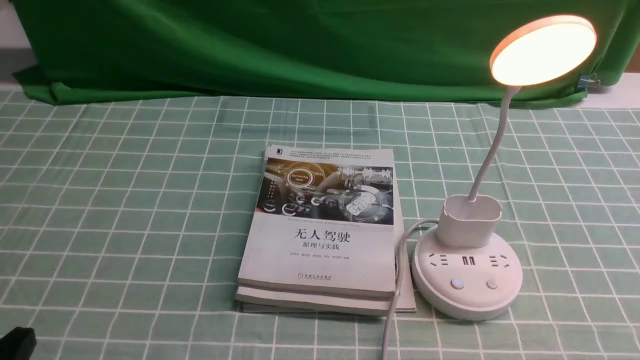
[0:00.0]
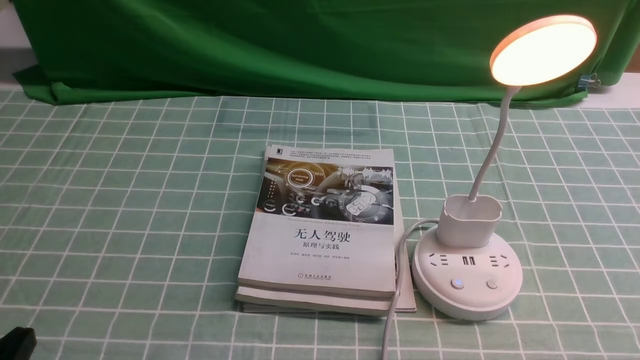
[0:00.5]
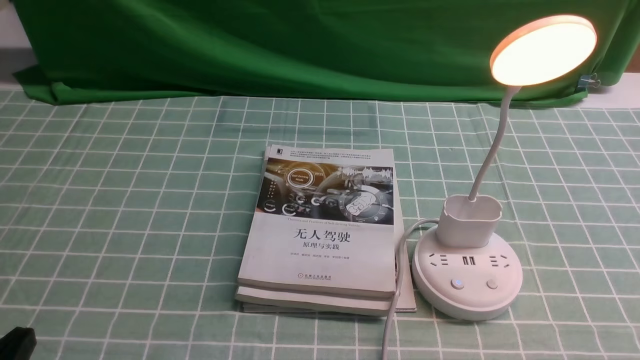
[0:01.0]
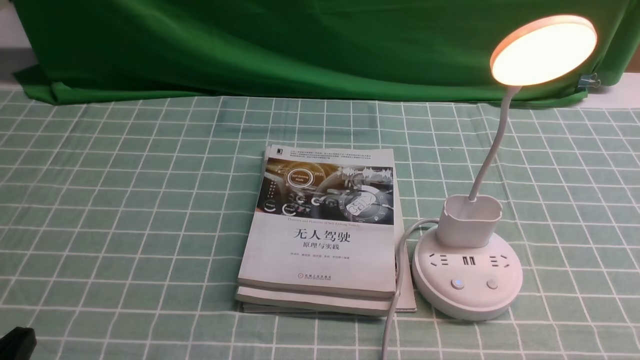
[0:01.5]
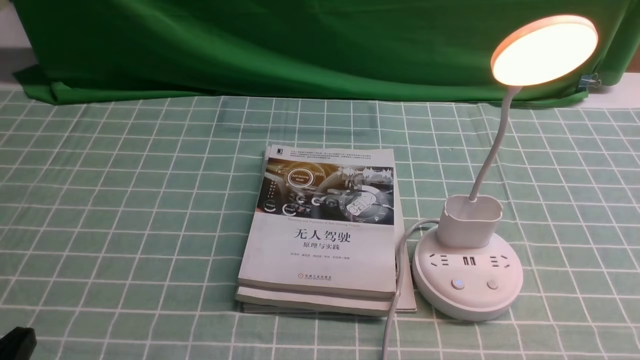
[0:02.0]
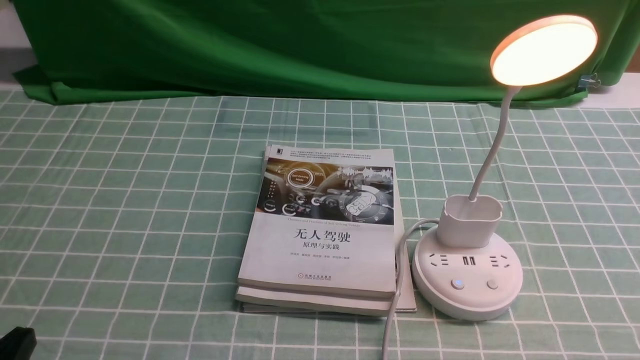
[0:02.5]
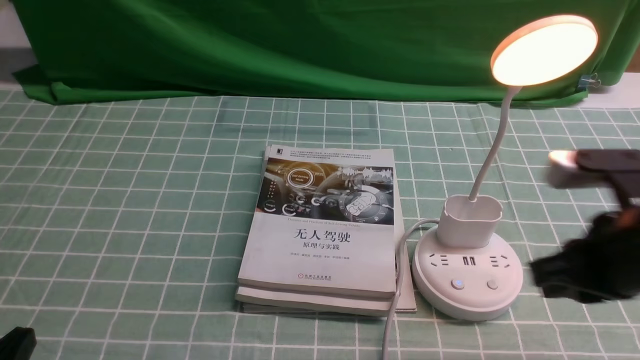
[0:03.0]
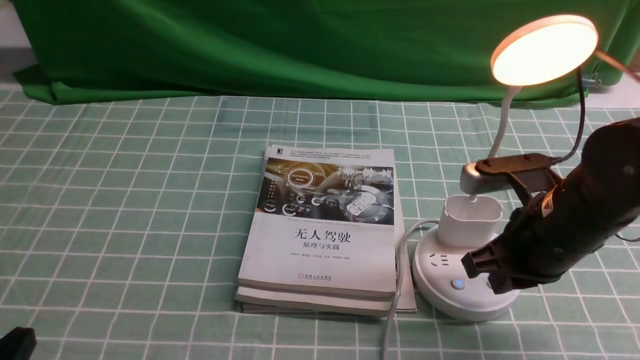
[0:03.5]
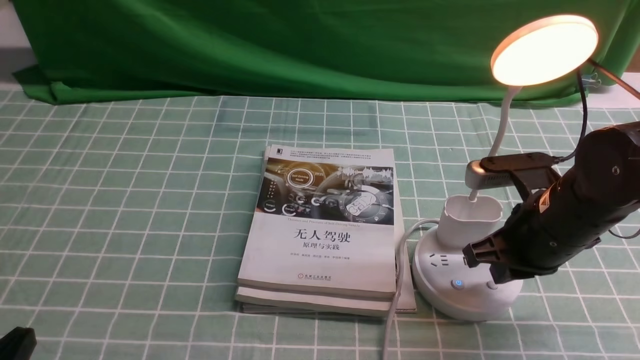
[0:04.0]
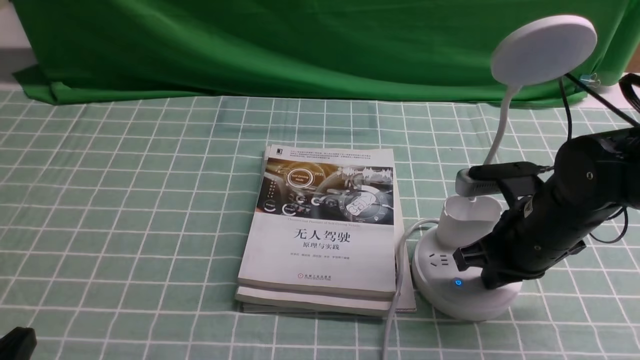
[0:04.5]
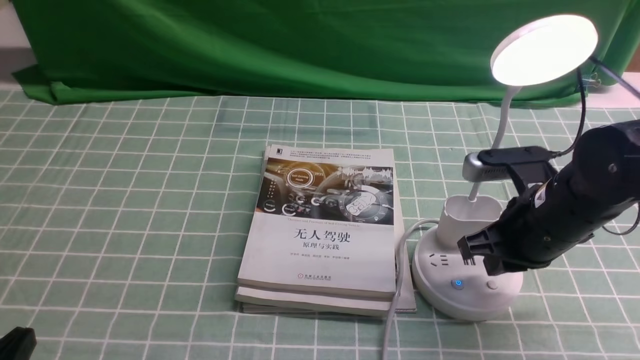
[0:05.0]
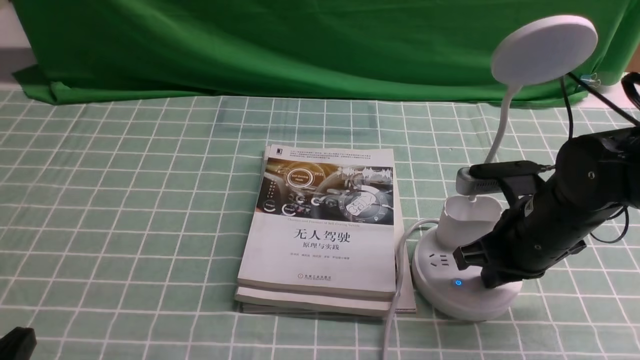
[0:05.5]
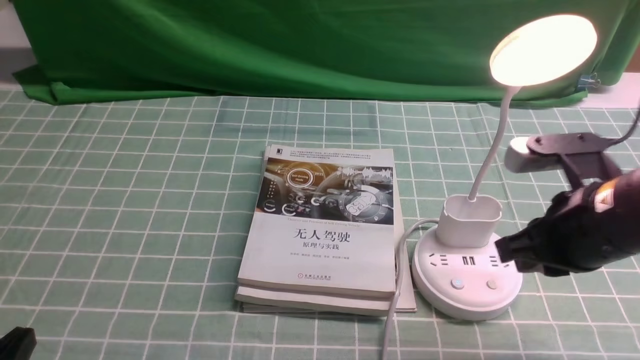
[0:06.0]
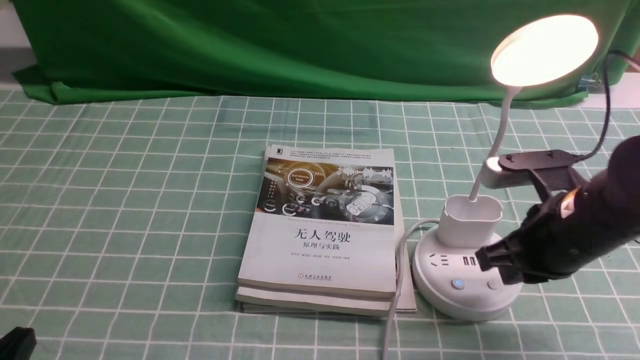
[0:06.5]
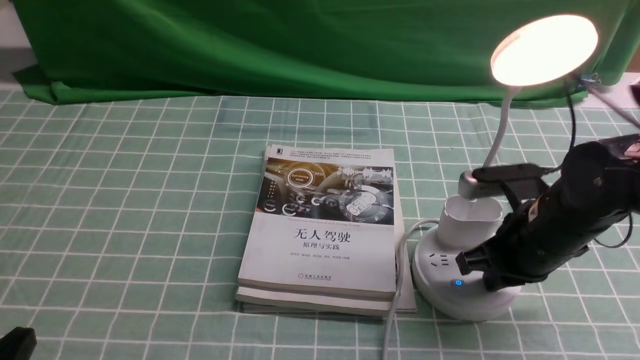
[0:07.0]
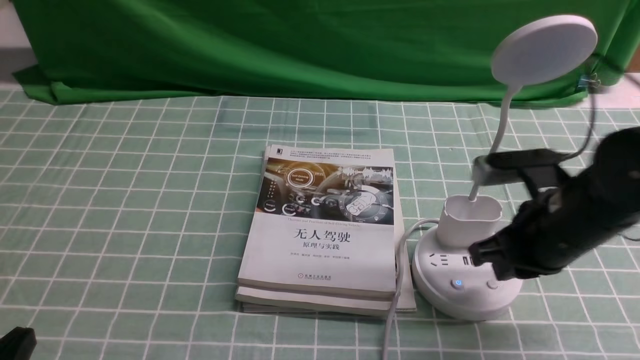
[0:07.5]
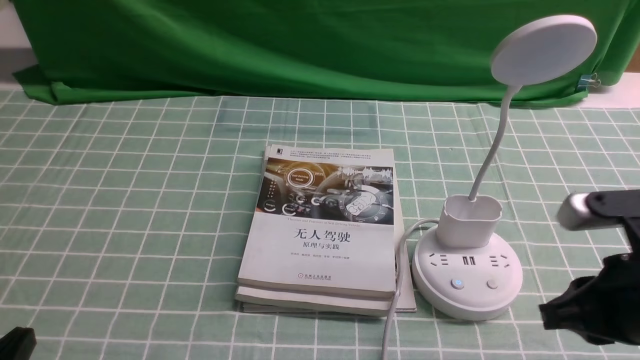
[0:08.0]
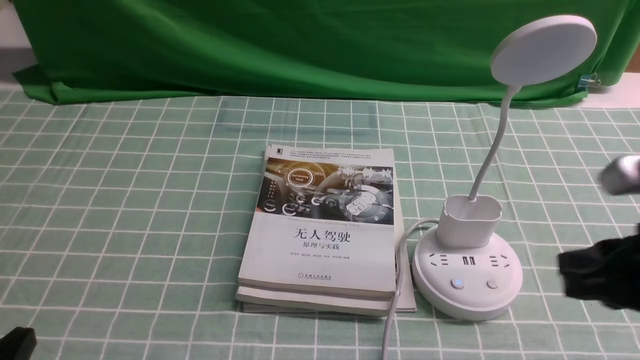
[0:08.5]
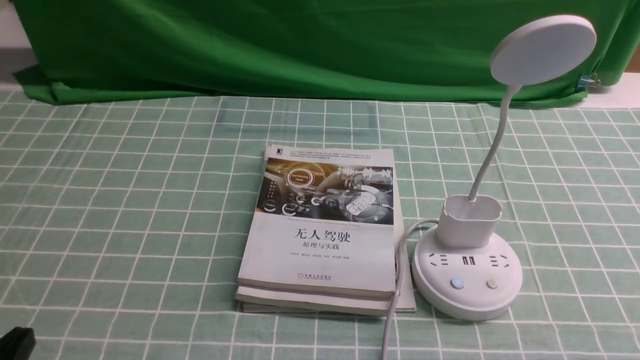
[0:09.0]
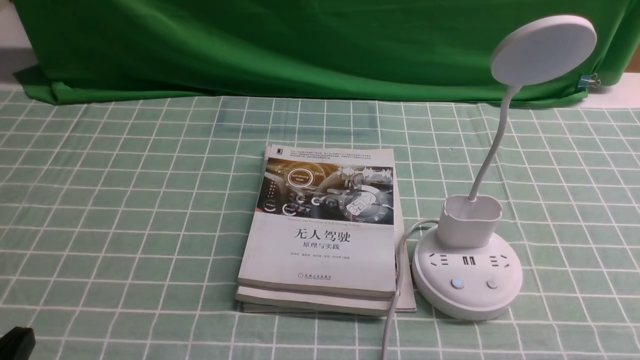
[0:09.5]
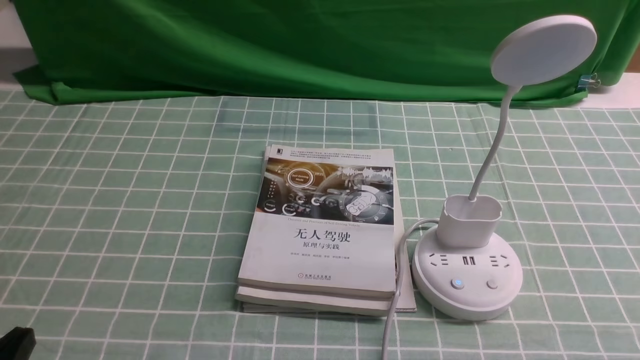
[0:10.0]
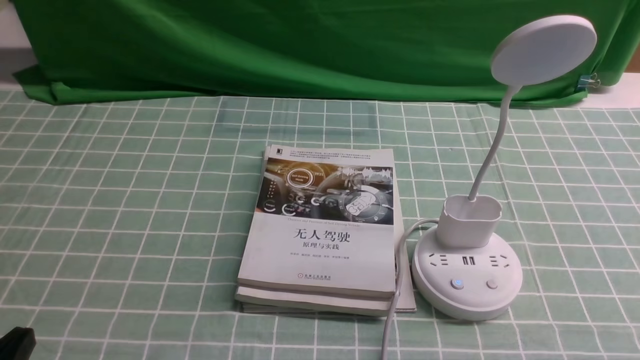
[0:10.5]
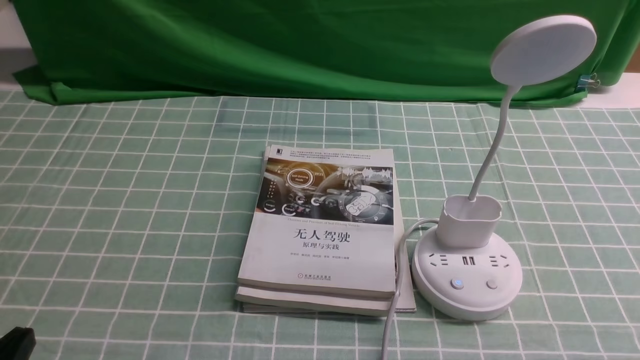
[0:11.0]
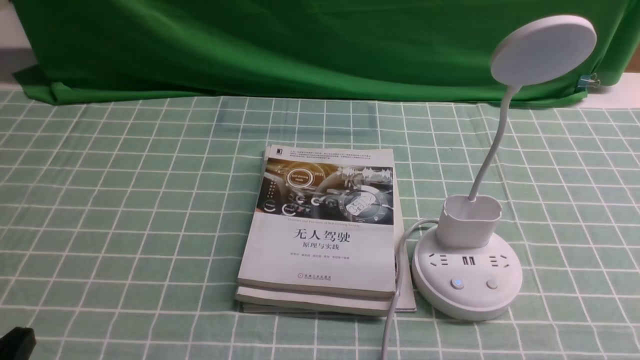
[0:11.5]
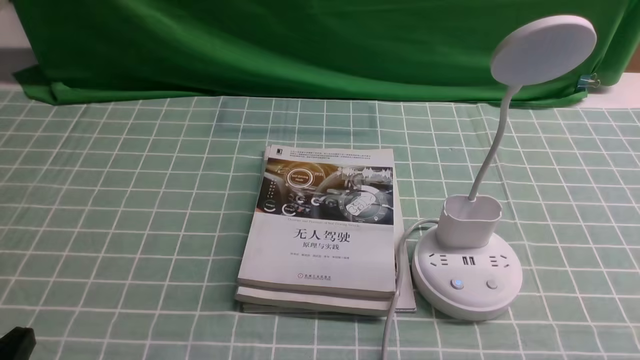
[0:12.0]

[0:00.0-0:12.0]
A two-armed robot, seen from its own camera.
Task of the whole recording: turn off the desk lamp on the blue coffee tablecloth by hand.
Step, 0:00.0 to 0:07.5: use the right arm to press the button switch on the lamp holder.
0:02.0 to 0:04.0: The right gripper is displaced forward and to the left by about 25 cm, and closes.
0:04.0 to 0:06.0: The right gripper moves about 5 cm.
0:06.0 to 0:08.0: The right gripper shifts approximately 5 cm backward.
0:08.0 to 0:10.0: The right gripper heads backward, to the right and downward, covering about 15 cm.

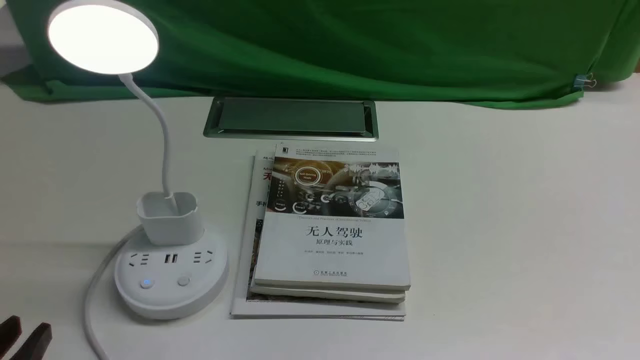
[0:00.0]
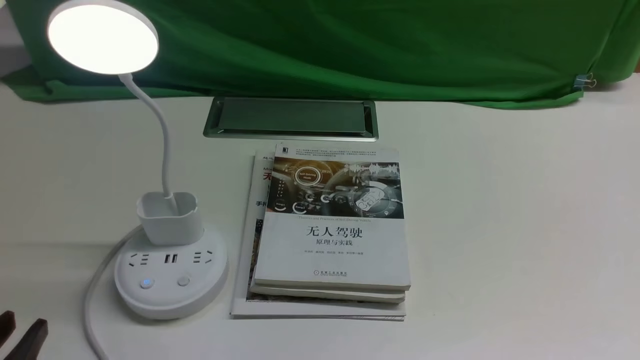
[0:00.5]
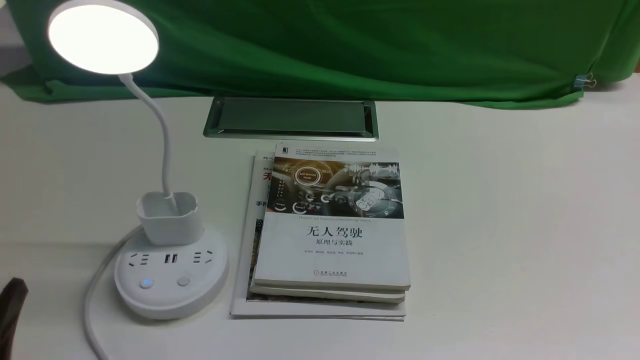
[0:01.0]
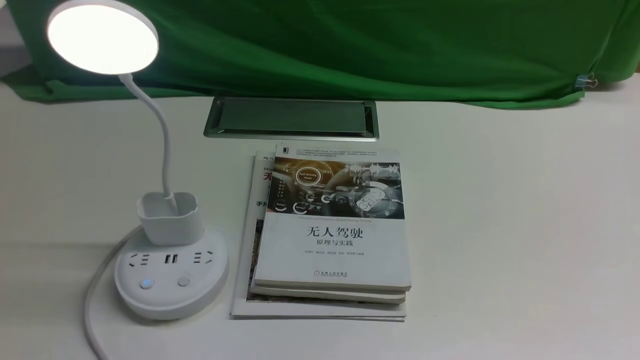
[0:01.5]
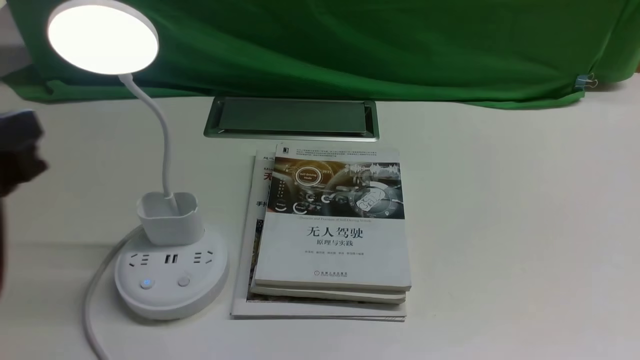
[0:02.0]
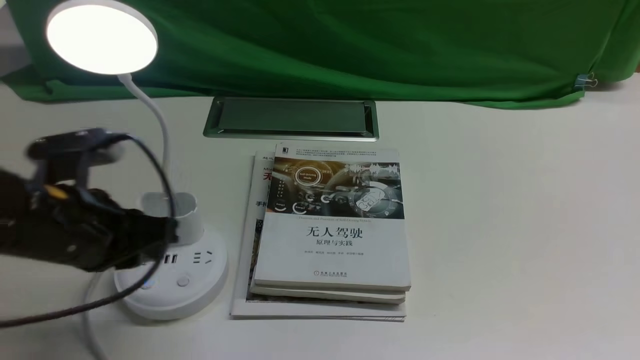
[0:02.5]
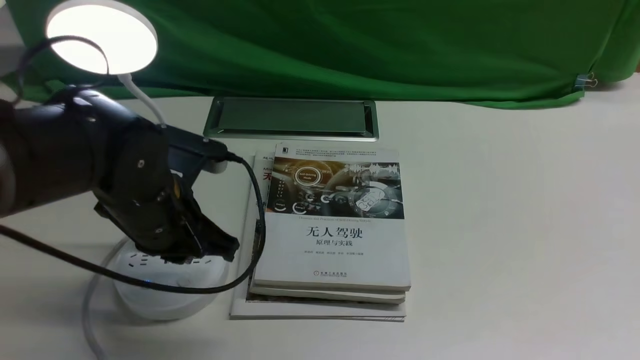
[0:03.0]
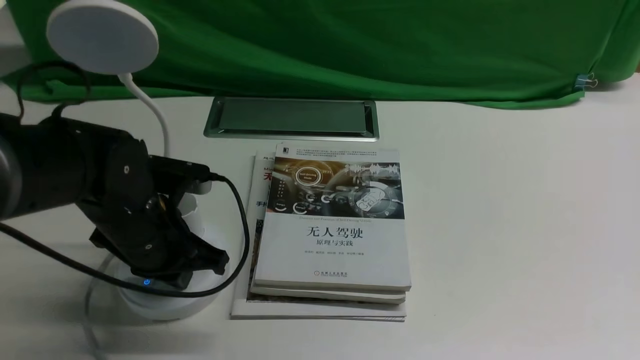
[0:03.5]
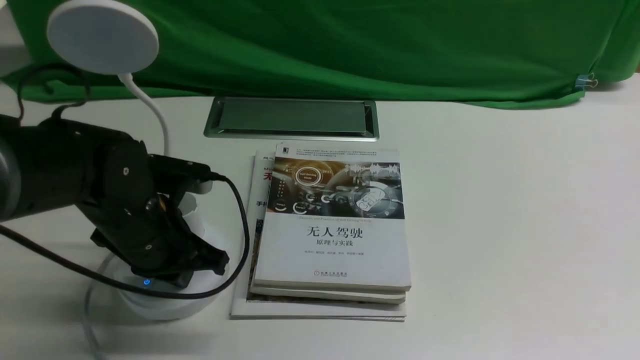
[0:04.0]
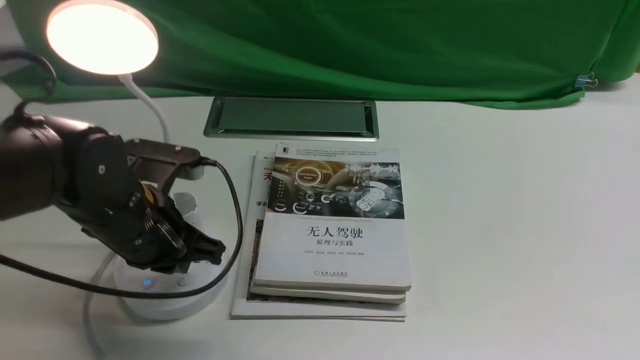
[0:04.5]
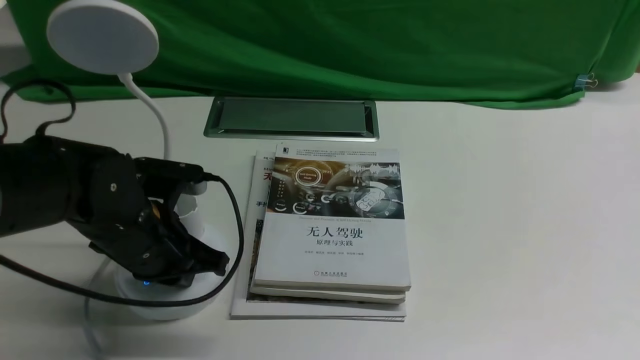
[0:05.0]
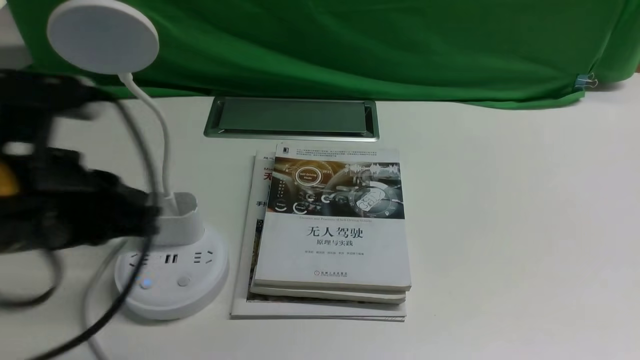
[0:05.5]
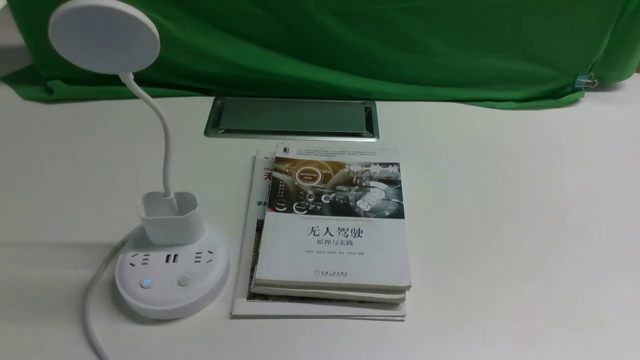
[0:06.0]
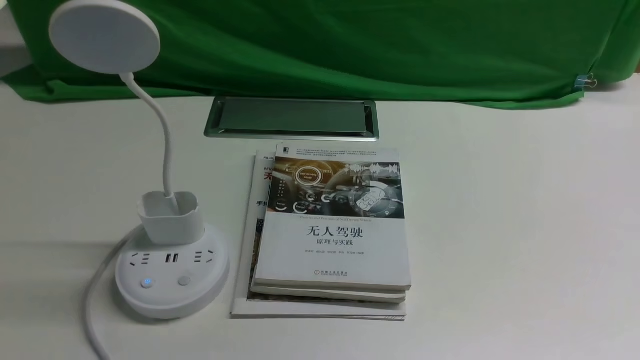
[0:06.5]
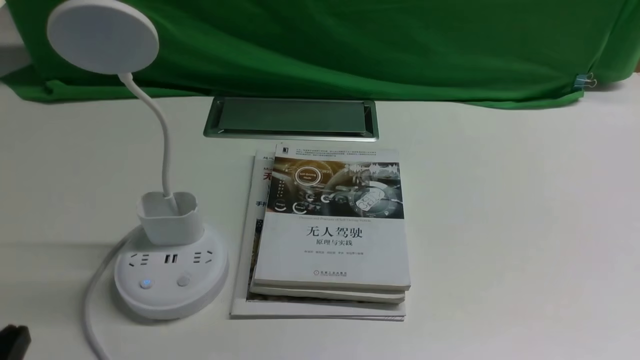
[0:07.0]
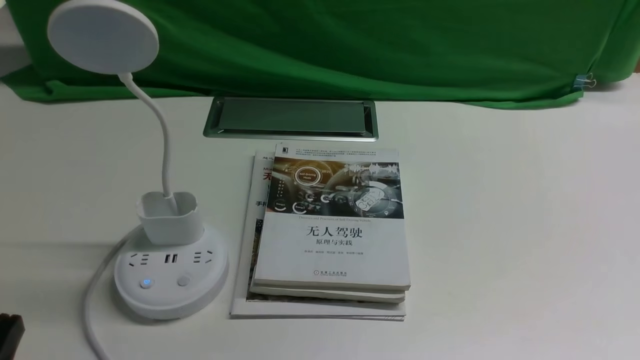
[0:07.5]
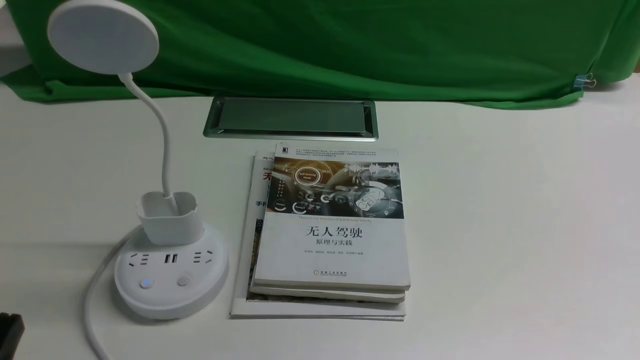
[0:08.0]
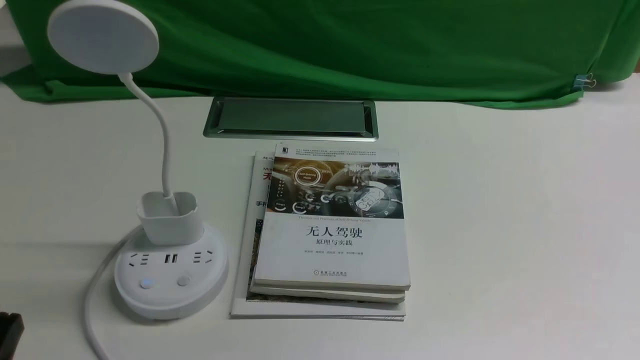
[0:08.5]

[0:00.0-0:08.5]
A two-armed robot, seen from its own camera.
Task of the whole recording: turn off the desk lamp on the white desktop by hand.
Step, 0:00.0 to 0:05.0: use the left arm to press the button switch on the lamp holder.
0:00.0 to 0:02.0: The left gripper shifts approximately 20 cm upward and forward.
0:02.0 to 0:04.0: The left gripper moves downward, forward and to the right, approximately 20 cm, and closes its fingers.
0:04.0 to 0:06.5: The left gripper moves backward and upward, approximately 25 cm.
